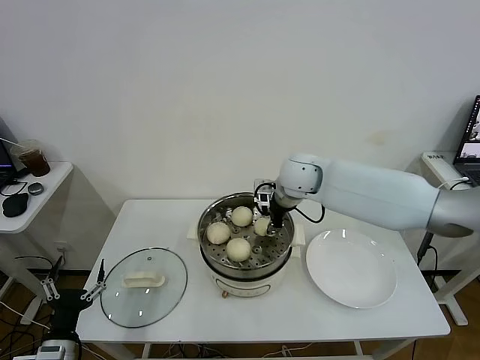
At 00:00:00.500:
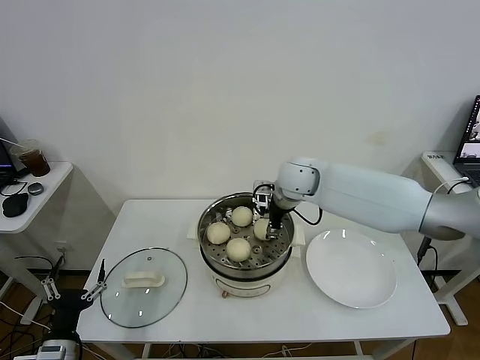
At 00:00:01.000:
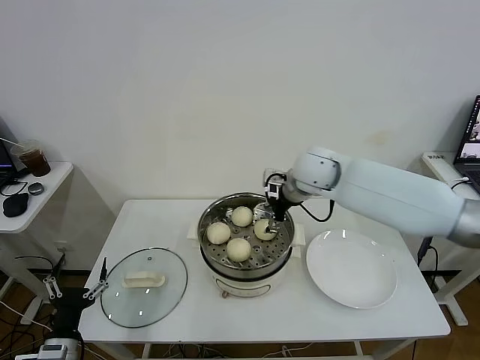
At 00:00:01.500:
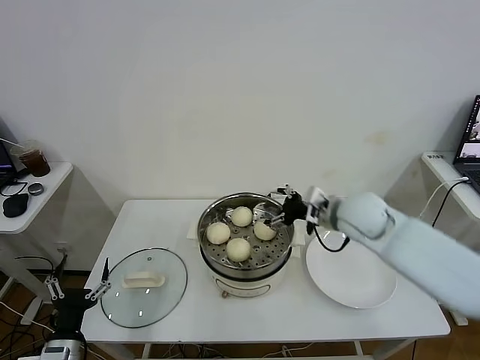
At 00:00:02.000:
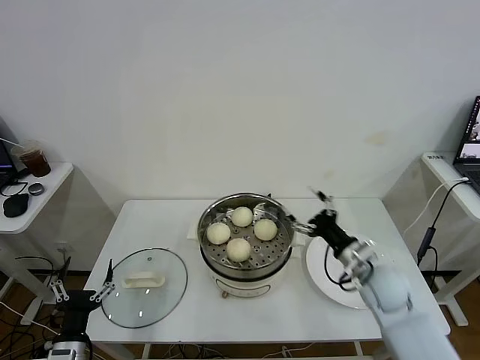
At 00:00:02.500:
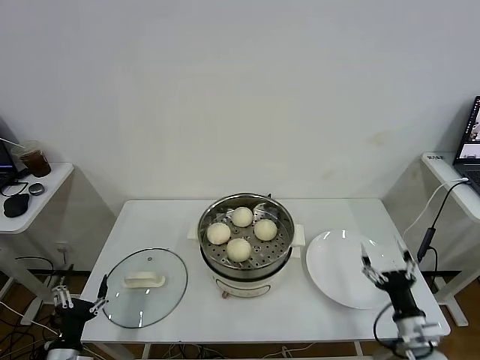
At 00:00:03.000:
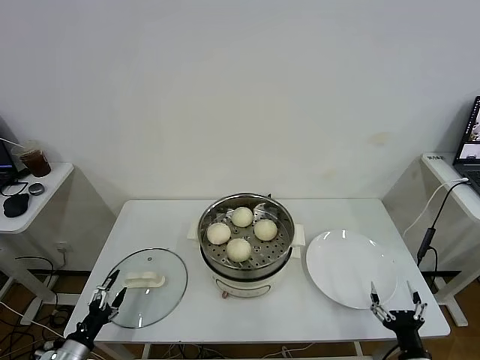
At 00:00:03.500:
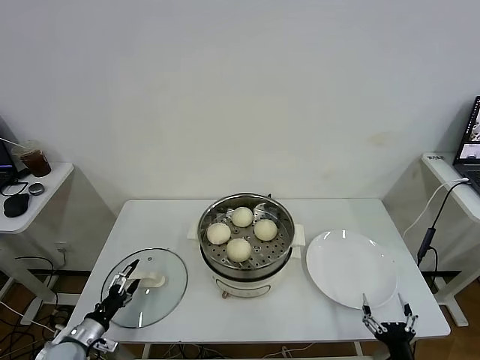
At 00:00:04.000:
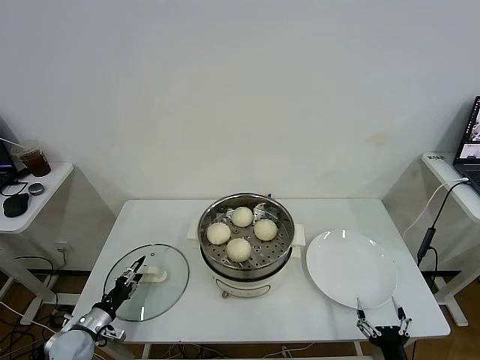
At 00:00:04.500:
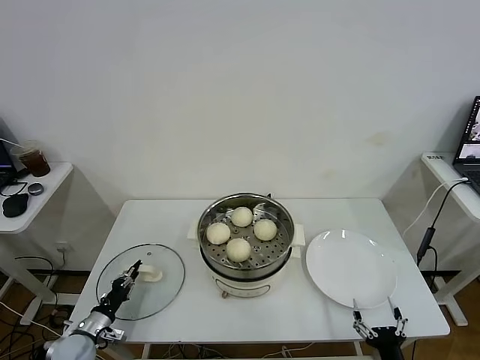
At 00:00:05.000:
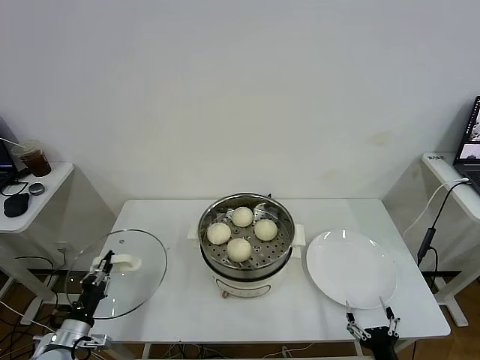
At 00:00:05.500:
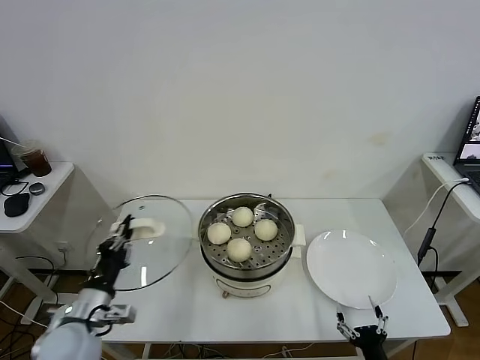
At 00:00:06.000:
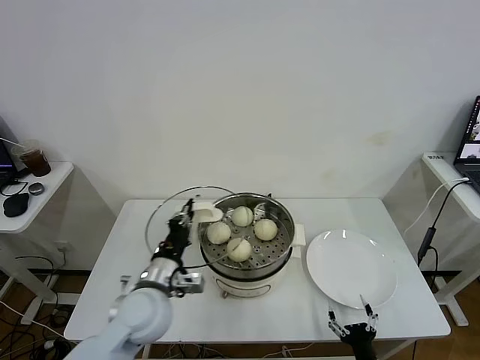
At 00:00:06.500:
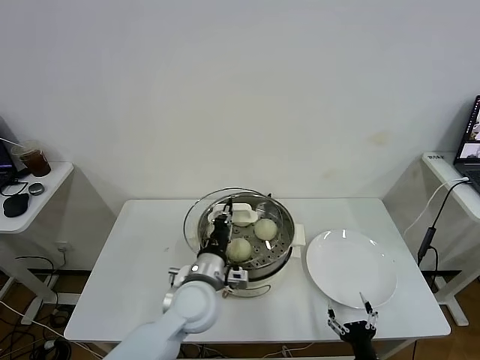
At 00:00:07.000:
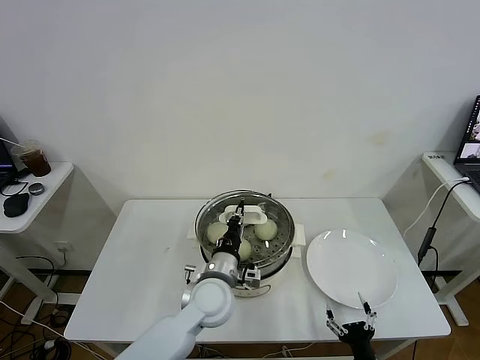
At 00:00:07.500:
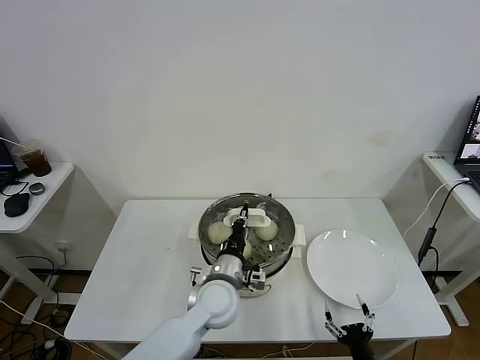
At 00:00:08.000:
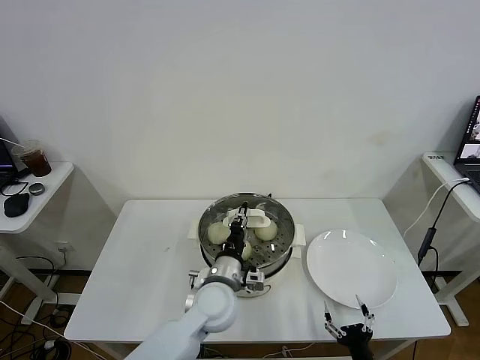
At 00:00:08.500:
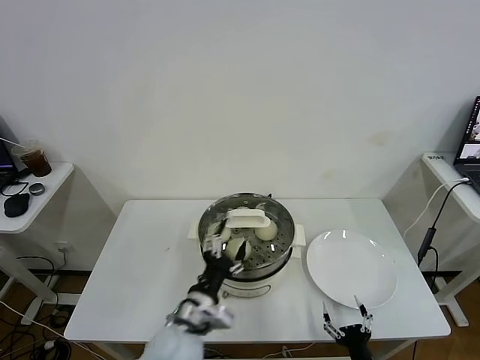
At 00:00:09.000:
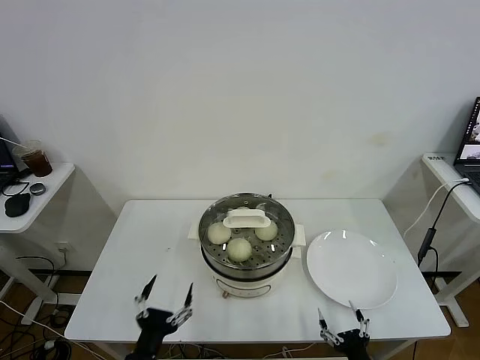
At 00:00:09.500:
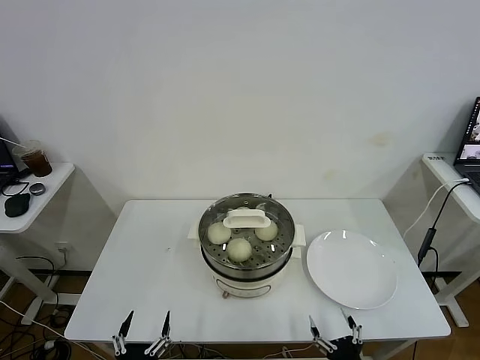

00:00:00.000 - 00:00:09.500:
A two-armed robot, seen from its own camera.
Task of the whole recording: take steamed baozi put them in steamer.
Step, 00:00:01.000 - 00:00:04.500: Grasp the pot lid with left gripper.
Step, 00:00:05.000 - 00:00:08.500: Place the pot lid on the steamer with left gripper.
00:00:00.000 - 00:00:02.000: The right gripper moves backward, to the right and downward, some 30 cm, and opens.
00:00:02.000 - 00:00:04.000: The right gripper goes about 30 cm backward and downward. The left gripper is displaced forward, downward and to the left by some 15 cm, and closes.
00:00:04.000 - 00:00:05.500: The left gripper heads upward and to the right, covering roughly 20 cm, and closes its fingers.
00:00:05.500 - 00:00:07.500: The left gripper moves to the right, some 25 cm.
00:00:07.500 - 00:00:09.500: The right gripper shifts by some 5 cm; the left gripper travels backward and to the left by approximately 30 cm, and opens.
